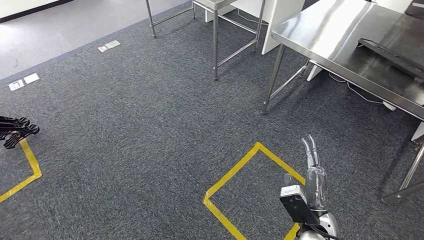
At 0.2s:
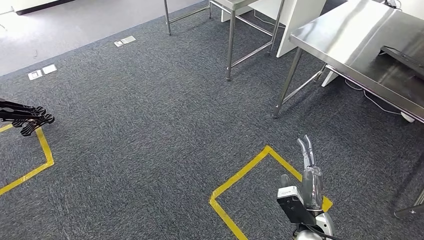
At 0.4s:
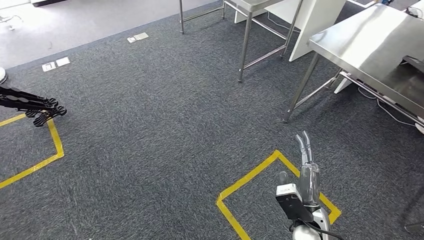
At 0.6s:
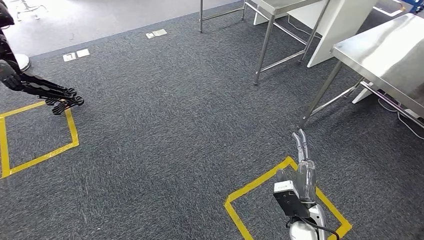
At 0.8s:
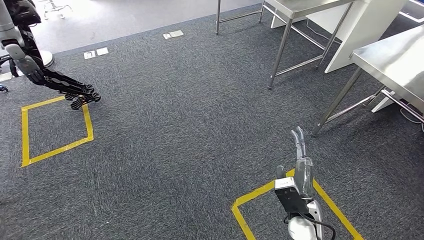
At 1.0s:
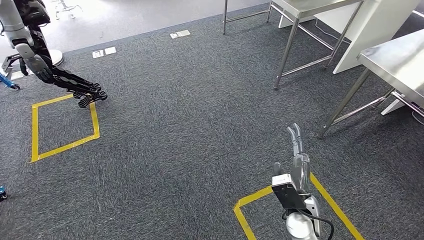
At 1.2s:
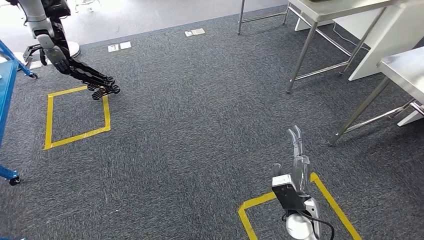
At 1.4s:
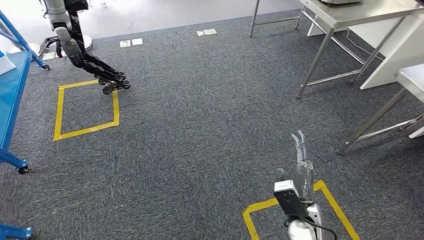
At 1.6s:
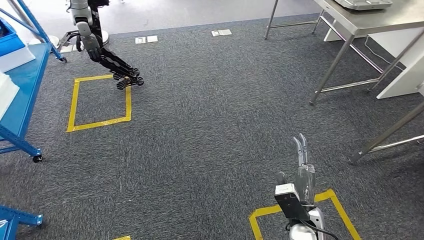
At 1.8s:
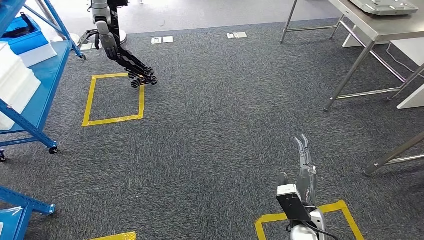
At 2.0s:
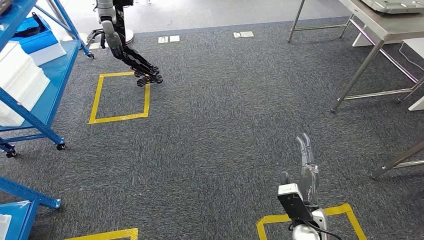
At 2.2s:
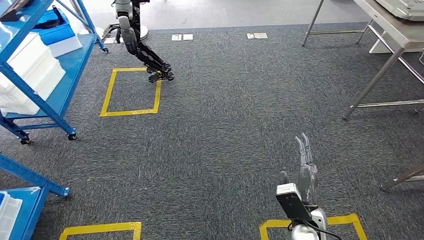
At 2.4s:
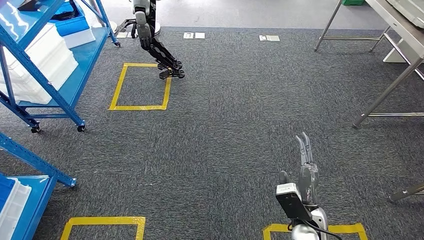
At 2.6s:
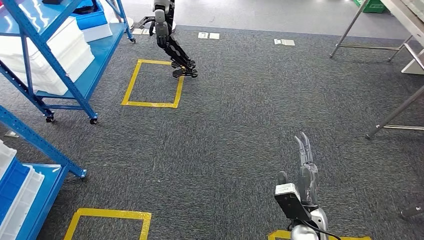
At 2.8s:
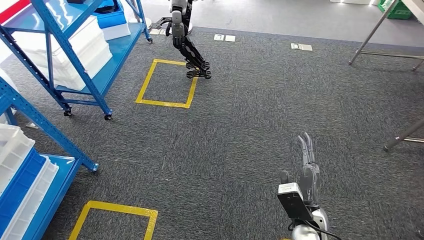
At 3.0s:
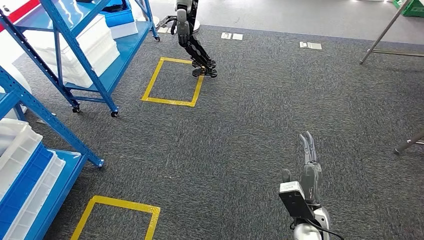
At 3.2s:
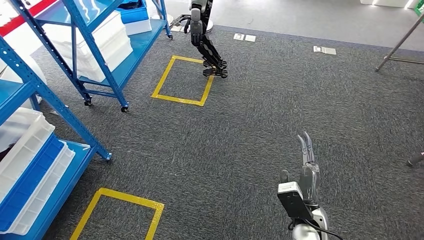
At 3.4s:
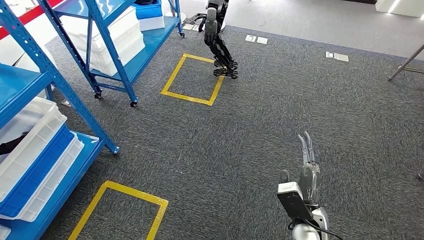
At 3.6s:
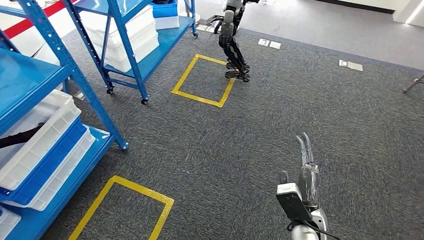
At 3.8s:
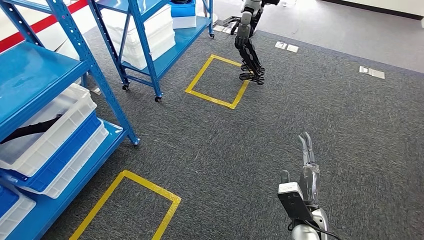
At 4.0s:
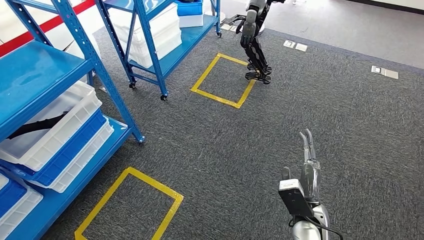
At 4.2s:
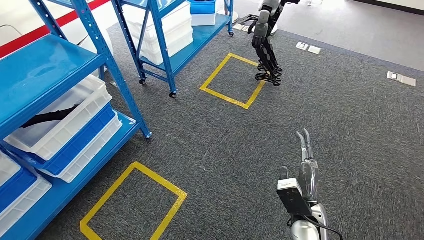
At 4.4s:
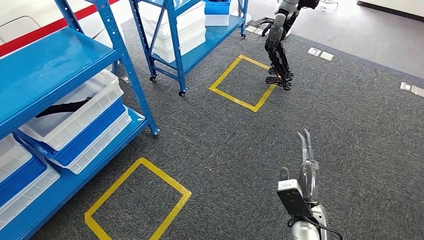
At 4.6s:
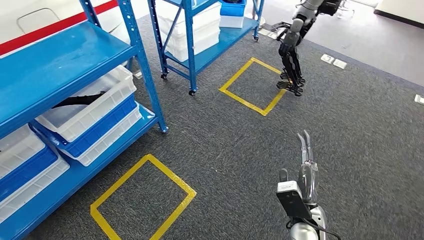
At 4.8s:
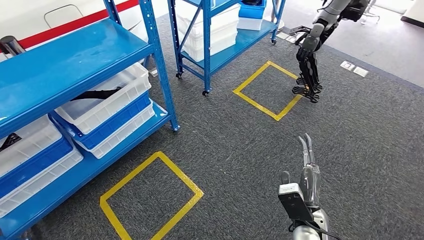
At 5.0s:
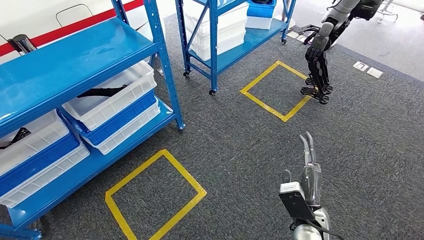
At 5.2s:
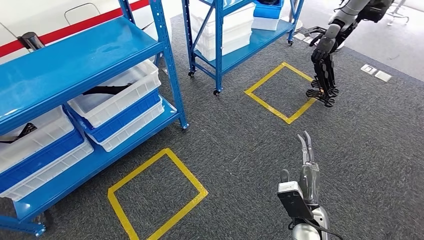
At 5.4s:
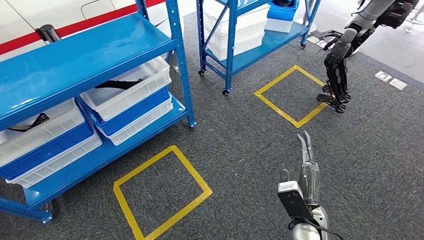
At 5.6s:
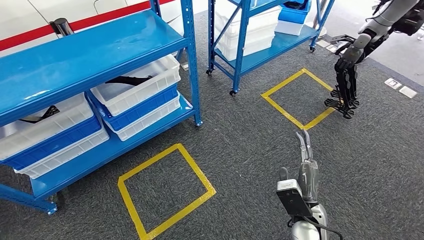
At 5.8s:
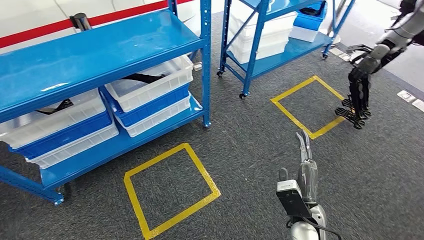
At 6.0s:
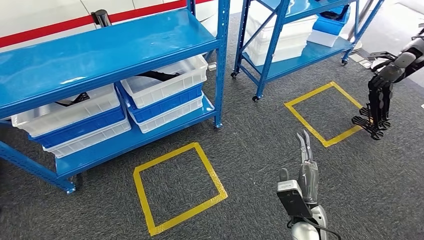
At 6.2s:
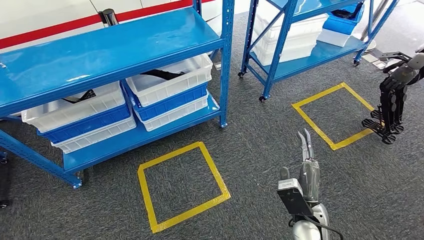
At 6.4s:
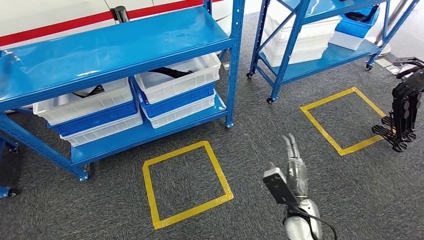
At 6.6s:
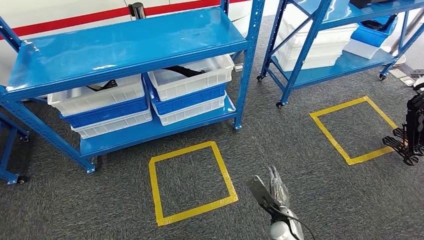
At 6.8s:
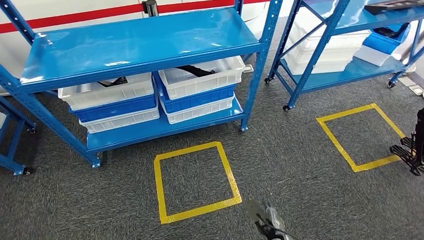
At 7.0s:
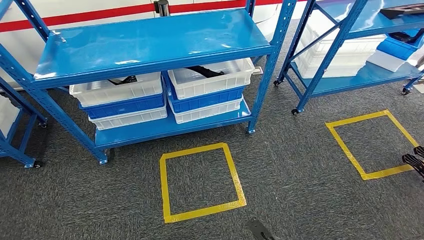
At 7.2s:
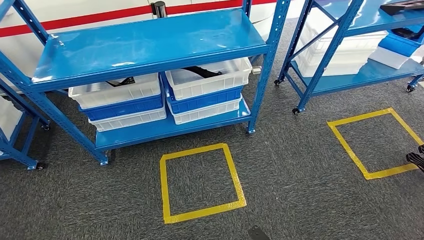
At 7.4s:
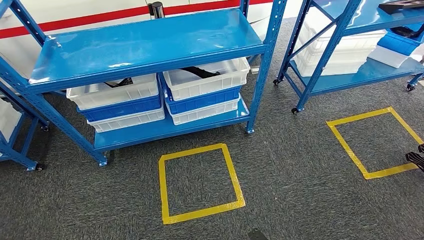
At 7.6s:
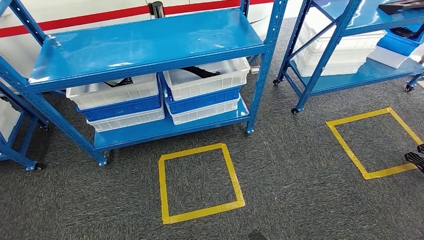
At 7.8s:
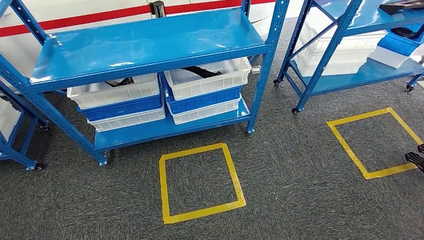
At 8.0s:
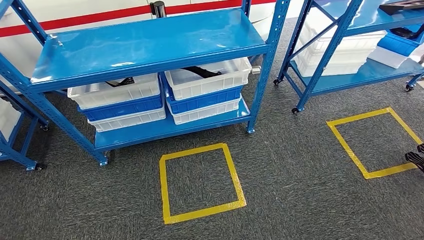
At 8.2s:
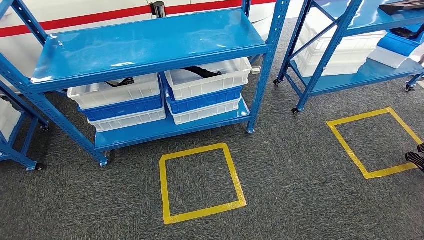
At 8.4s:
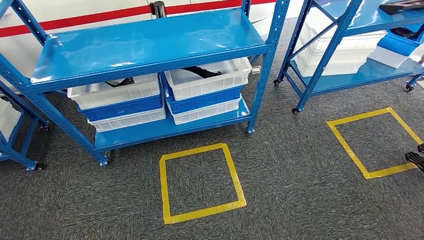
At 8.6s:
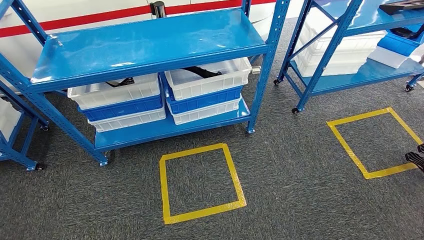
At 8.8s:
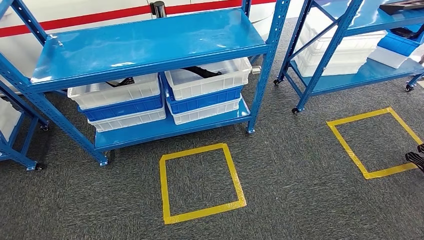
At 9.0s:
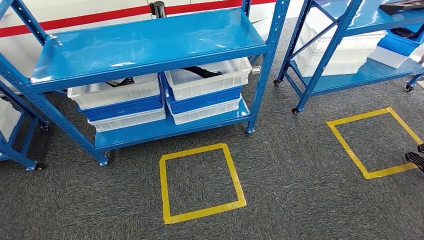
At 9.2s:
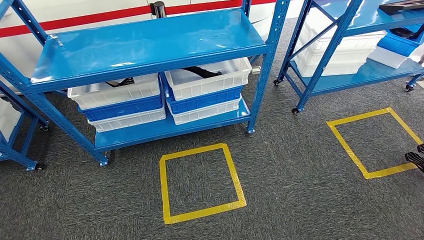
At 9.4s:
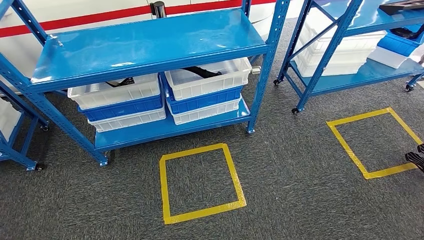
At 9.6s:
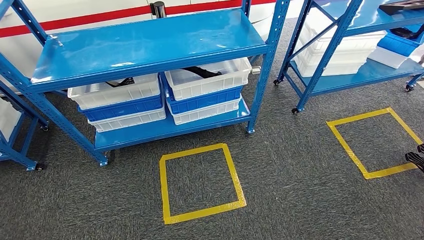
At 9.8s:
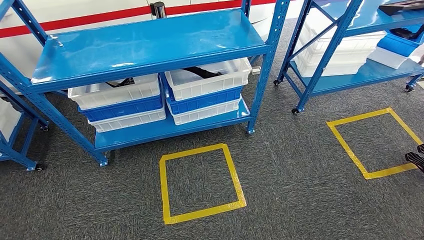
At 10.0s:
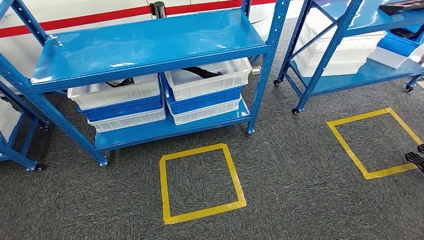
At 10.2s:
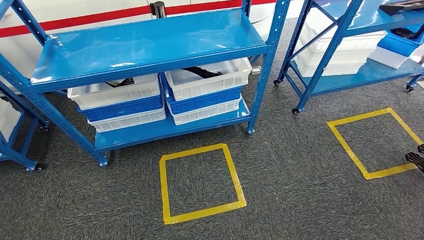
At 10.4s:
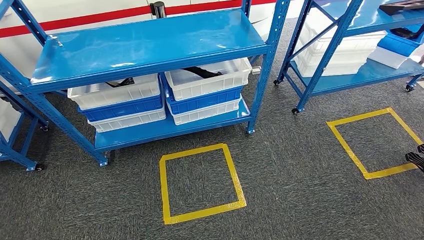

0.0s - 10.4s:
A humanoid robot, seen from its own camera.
Step, 0.0s - 10.4s: Move to the initial position of the shelf.
